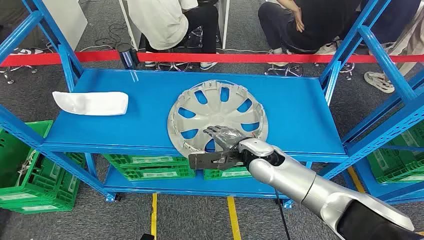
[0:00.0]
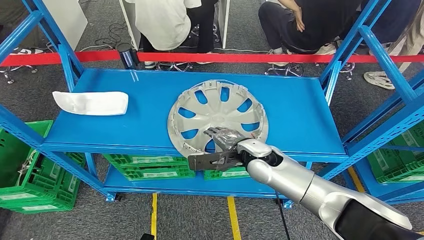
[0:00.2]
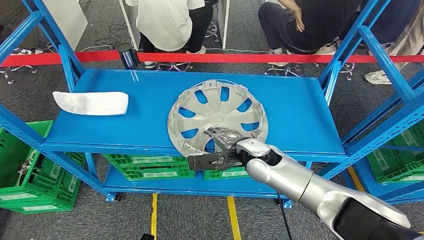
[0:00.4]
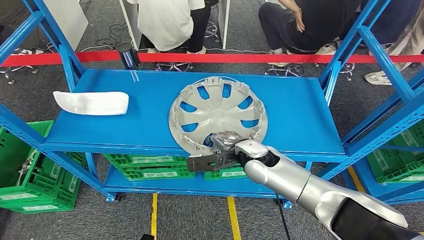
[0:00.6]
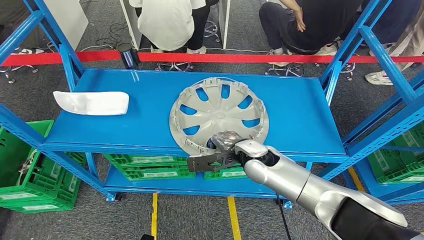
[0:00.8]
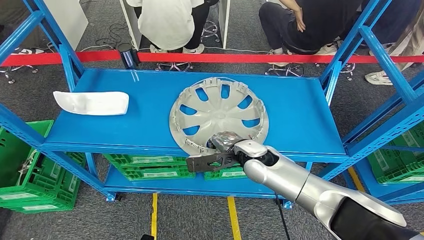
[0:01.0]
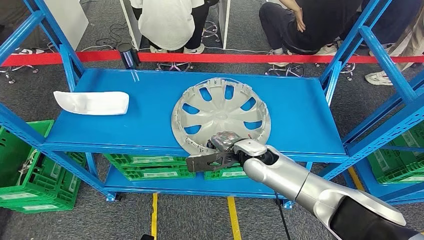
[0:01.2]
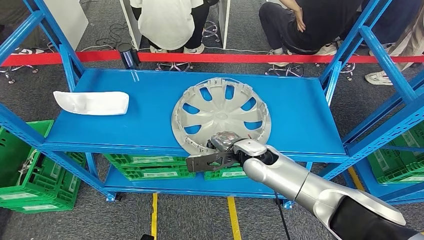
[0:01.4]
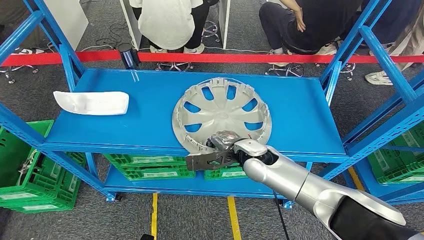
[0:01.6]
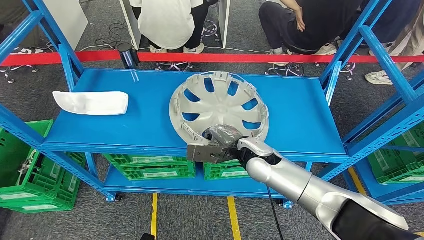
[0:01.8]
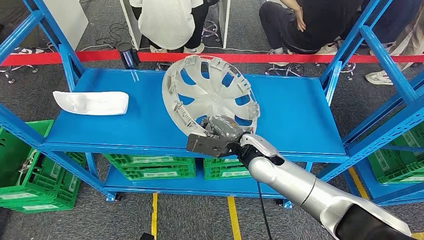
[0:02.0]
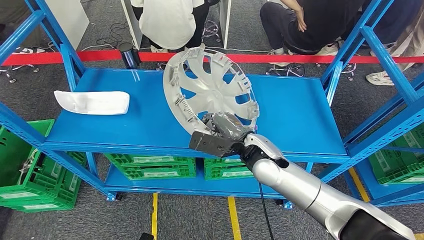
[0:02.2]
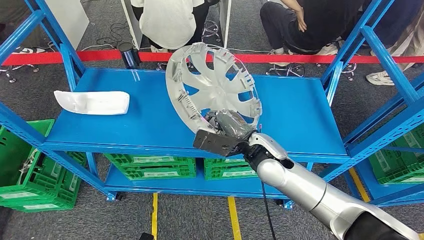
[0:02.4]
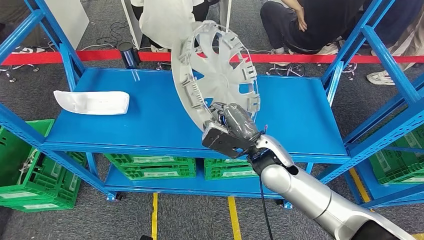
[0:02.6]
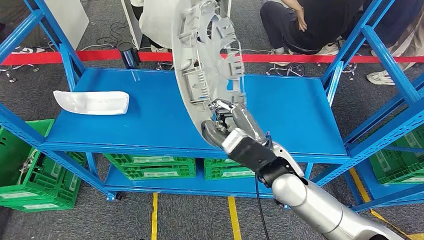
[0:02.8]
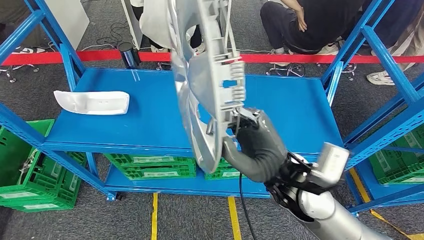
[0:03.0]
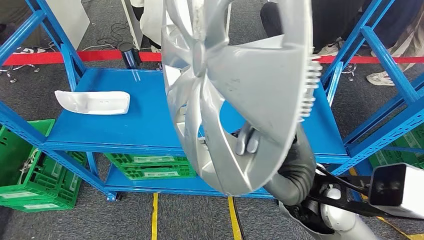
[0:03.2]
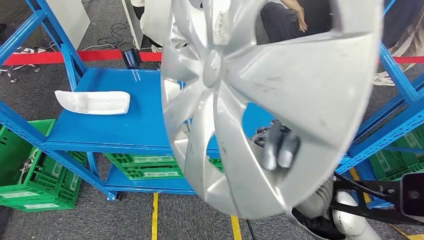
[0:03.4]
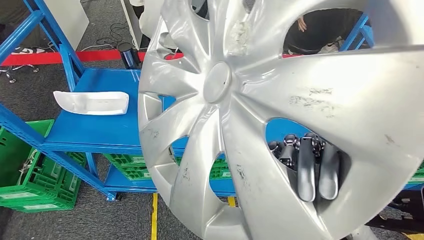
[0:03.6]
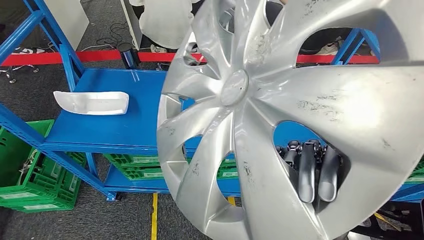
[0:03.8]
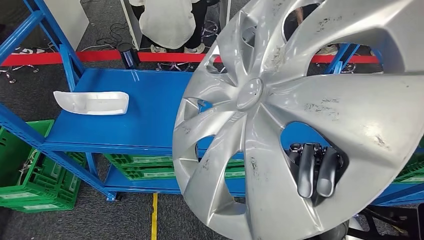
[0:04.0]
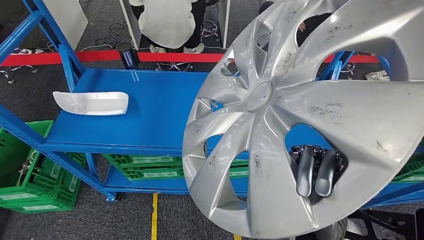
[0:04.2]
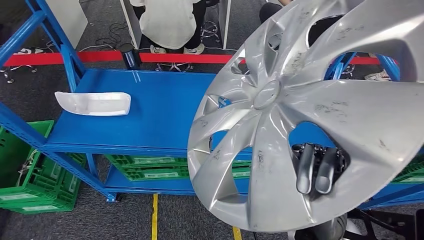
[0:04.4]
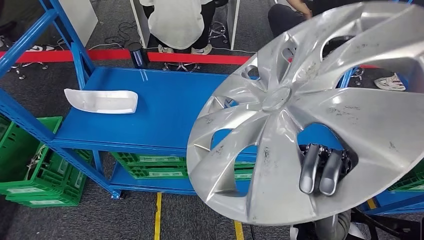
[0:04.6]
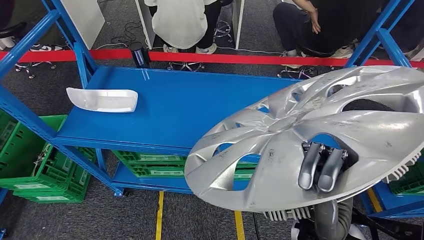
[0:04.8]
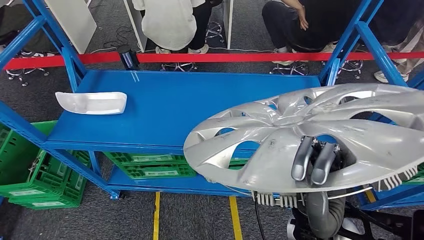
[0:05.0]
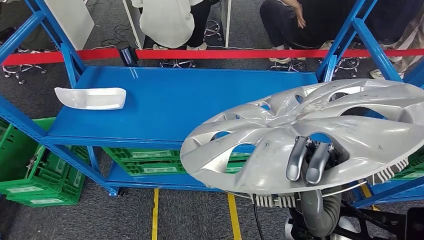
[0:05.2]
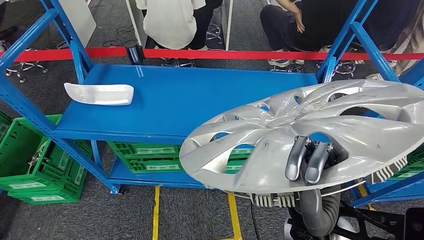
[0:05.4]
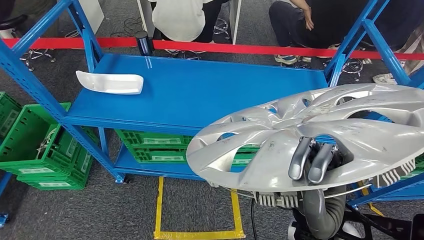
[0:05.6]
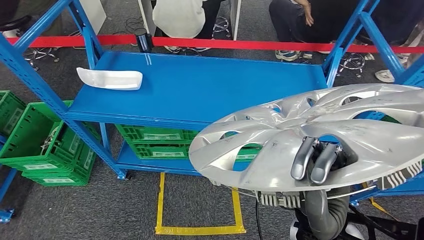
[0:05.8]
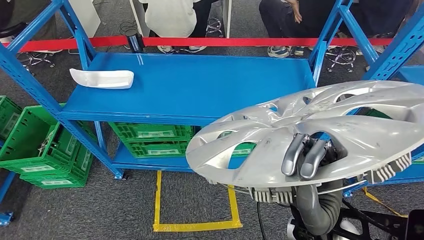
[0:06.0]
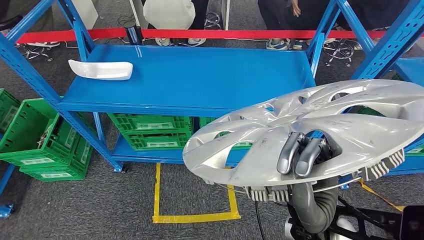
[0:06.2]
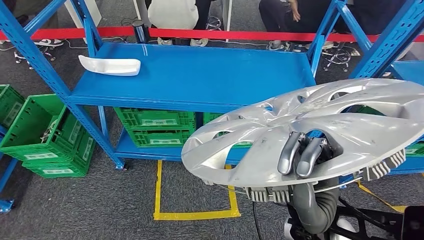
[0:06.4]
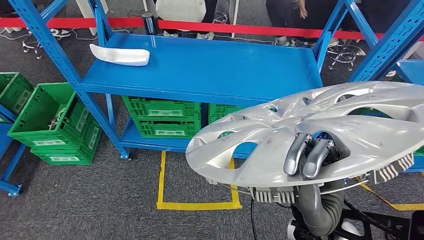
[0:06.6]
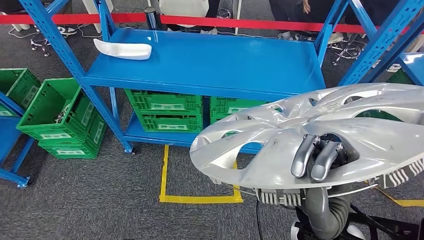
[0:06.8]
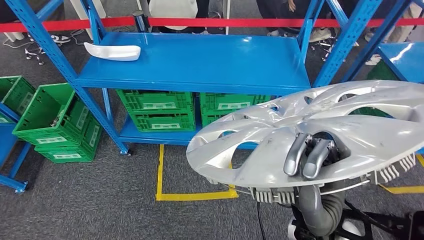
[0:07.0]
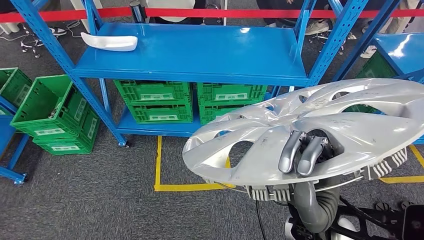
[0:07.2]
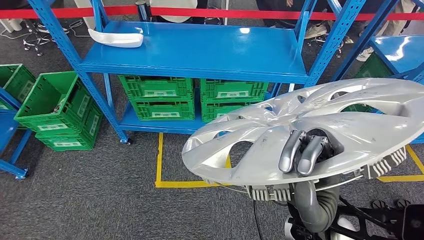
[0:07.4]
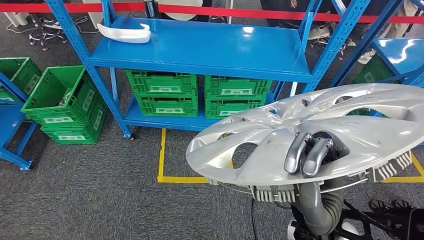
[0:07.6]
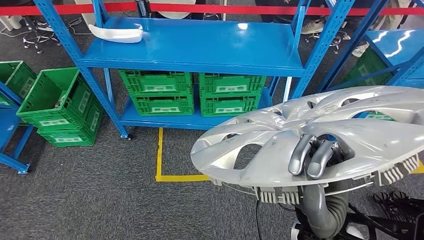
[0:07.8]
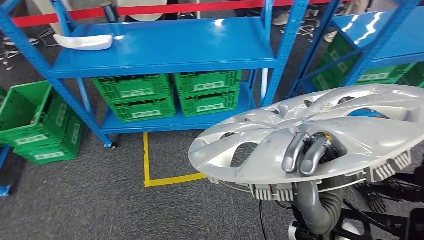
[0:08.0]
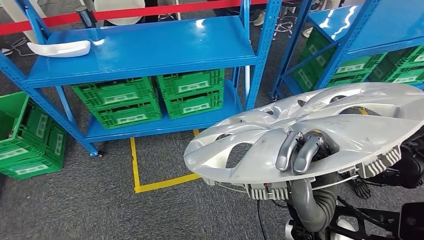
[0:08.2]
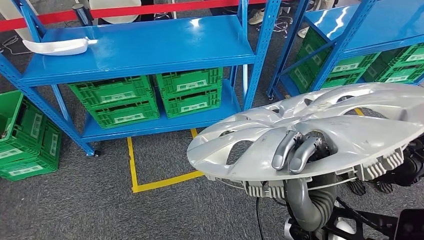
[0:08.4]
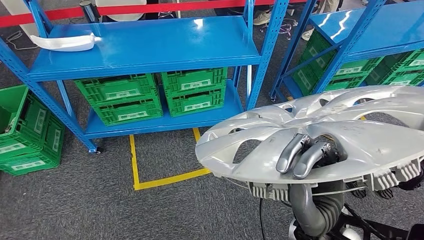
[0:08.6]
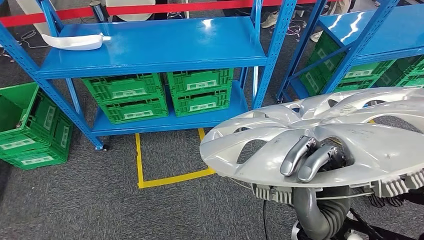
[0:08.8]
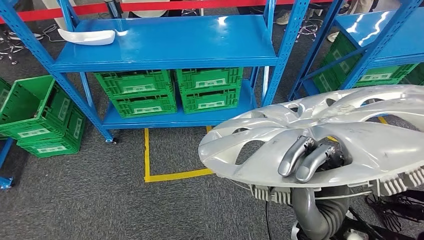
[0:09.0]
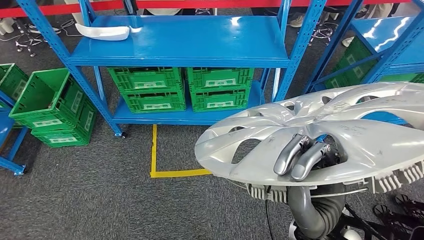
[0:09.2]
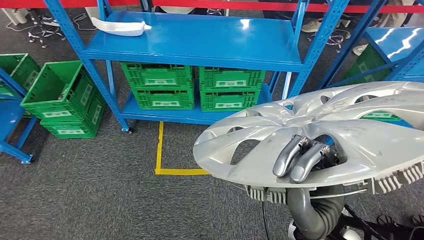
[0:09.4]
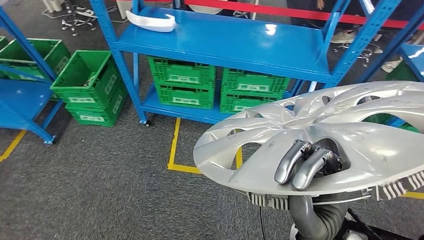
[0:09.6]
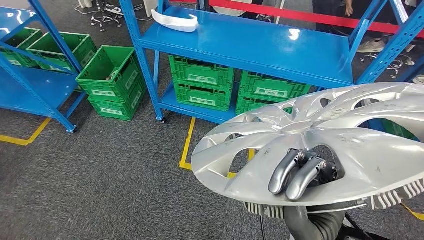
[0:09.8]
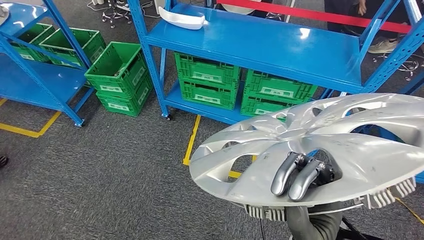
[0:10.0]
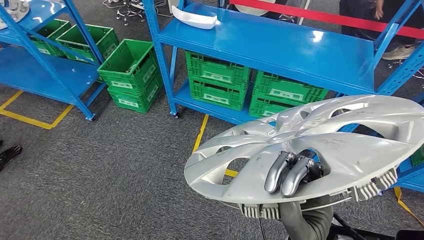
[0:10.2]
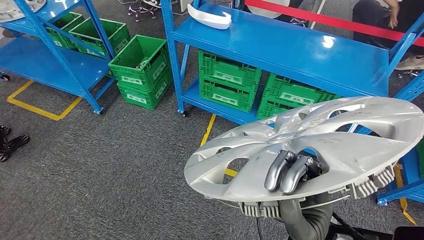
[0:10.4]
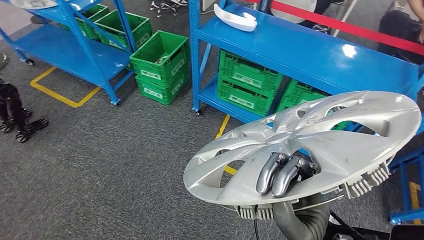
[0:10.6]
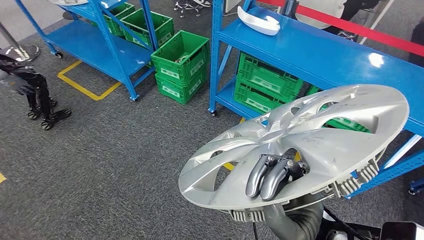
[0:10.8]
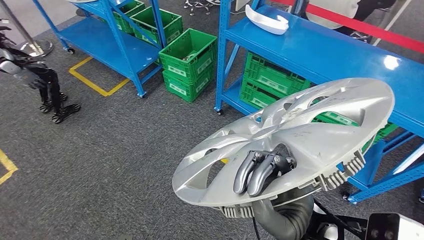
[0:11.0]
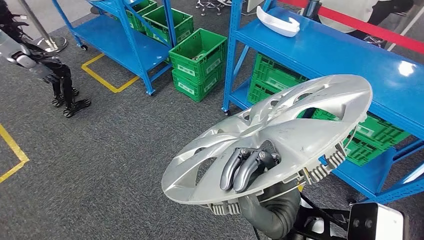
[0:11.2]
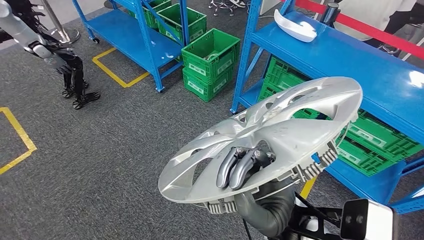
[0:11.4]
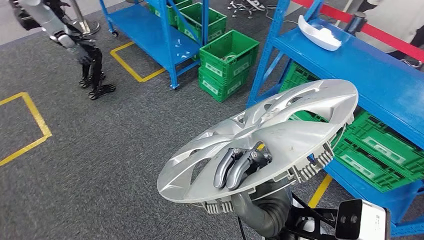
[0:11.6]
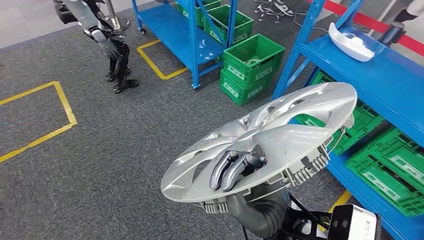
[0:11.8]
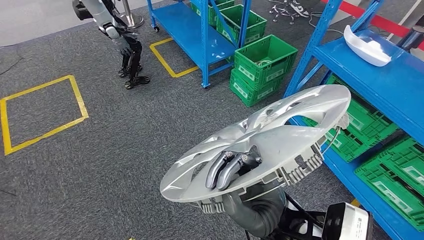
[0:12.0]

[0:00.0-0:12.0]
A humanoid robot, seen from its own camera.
Step, 0:00.0 to 0:04.4: Take small components from the rack.

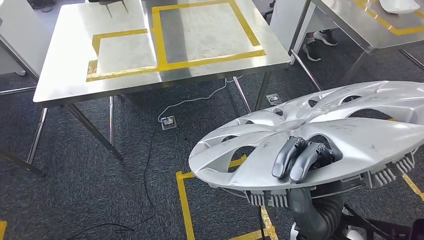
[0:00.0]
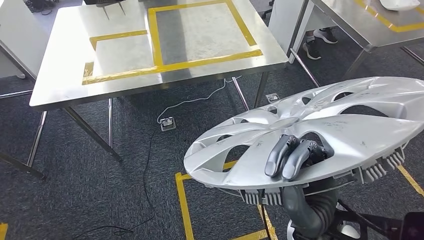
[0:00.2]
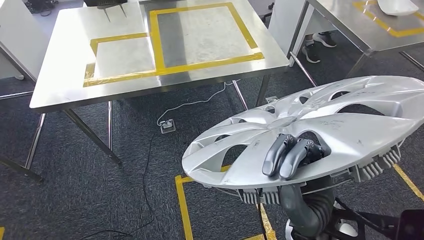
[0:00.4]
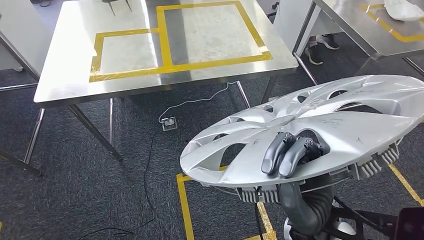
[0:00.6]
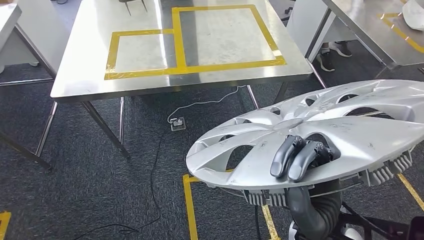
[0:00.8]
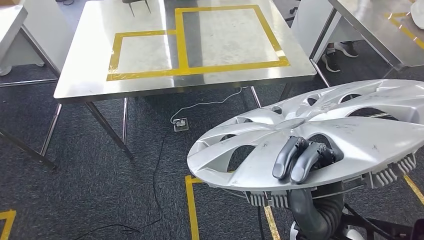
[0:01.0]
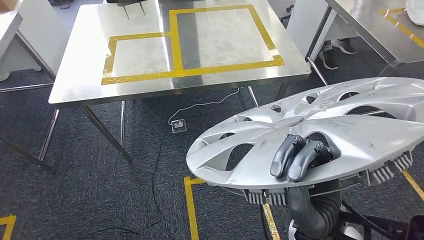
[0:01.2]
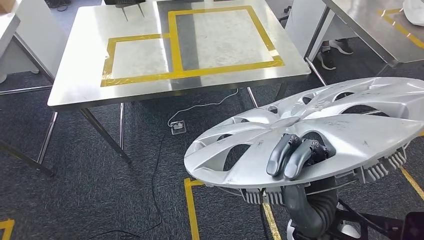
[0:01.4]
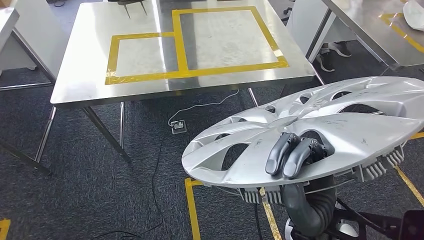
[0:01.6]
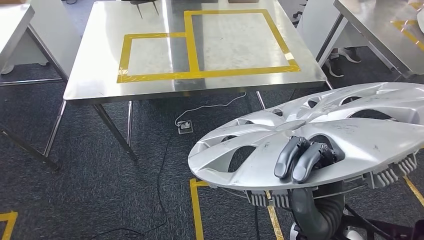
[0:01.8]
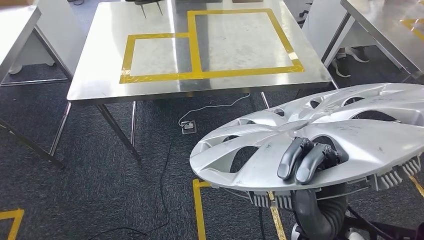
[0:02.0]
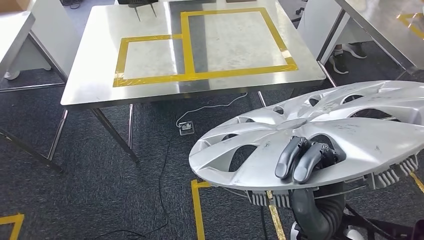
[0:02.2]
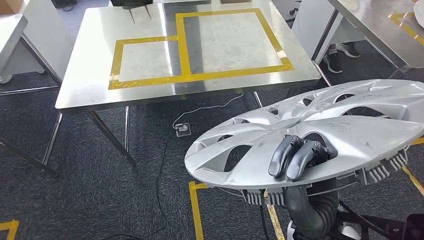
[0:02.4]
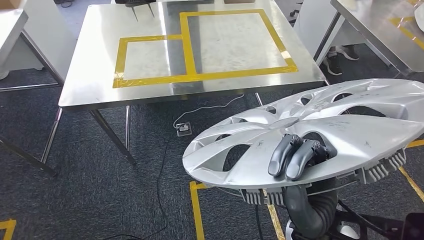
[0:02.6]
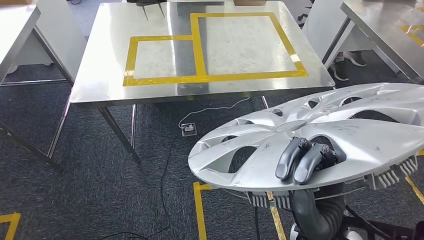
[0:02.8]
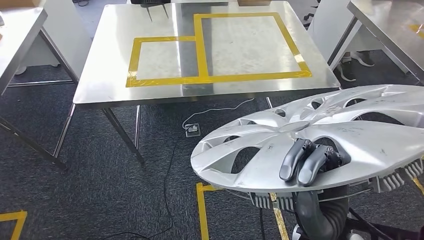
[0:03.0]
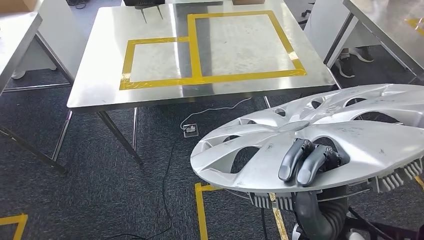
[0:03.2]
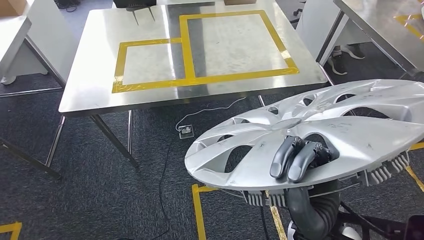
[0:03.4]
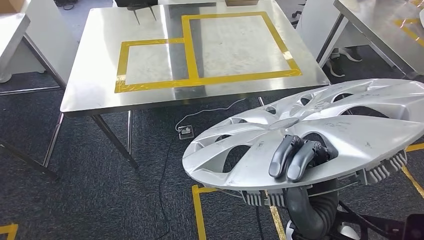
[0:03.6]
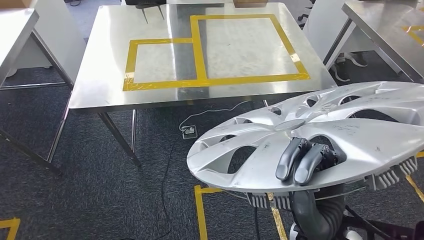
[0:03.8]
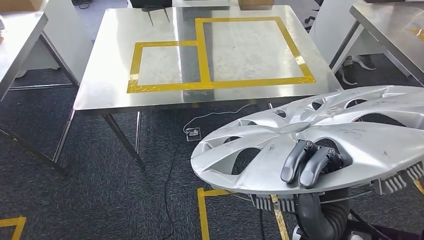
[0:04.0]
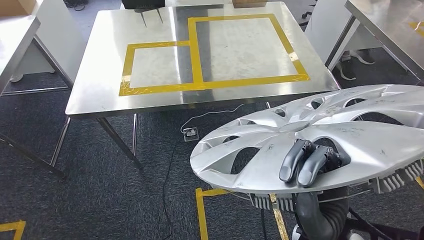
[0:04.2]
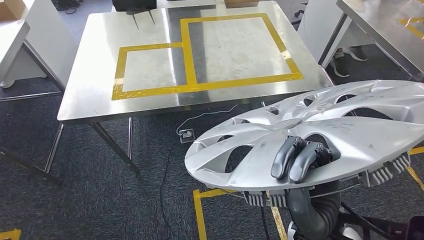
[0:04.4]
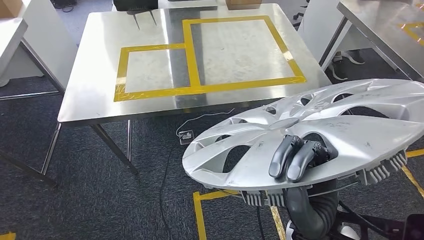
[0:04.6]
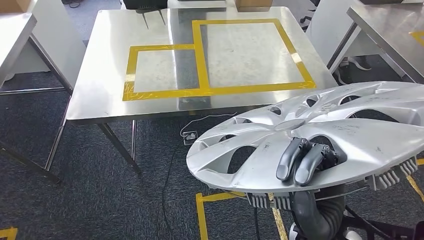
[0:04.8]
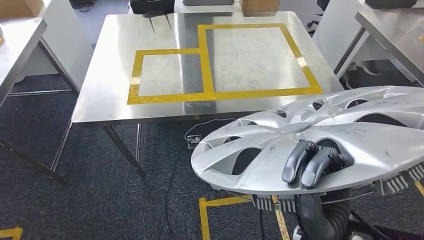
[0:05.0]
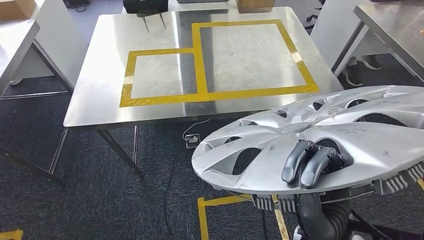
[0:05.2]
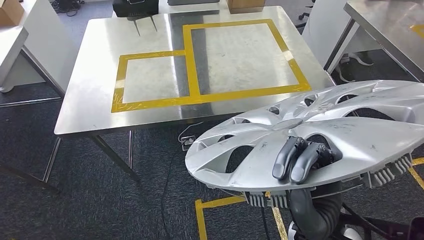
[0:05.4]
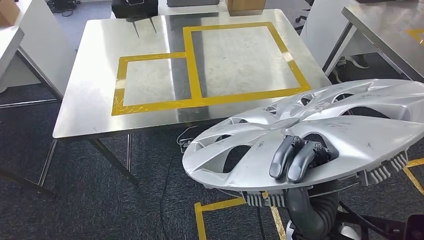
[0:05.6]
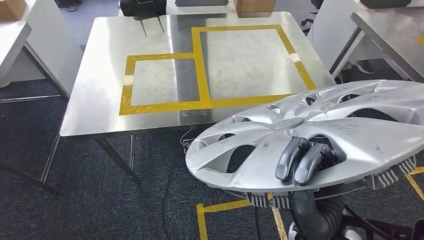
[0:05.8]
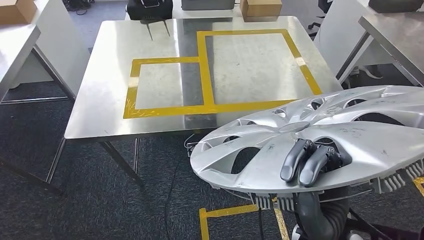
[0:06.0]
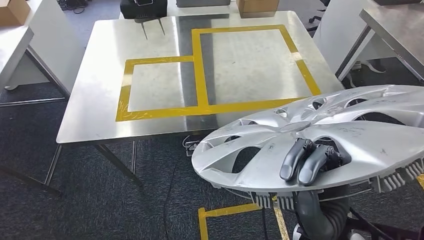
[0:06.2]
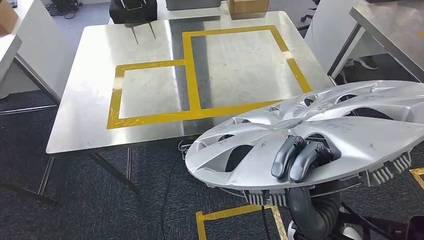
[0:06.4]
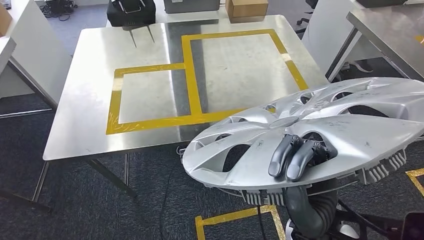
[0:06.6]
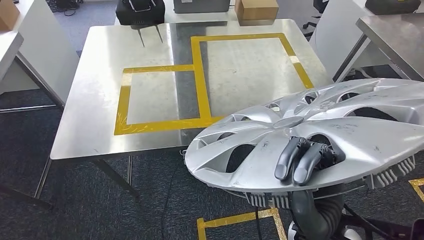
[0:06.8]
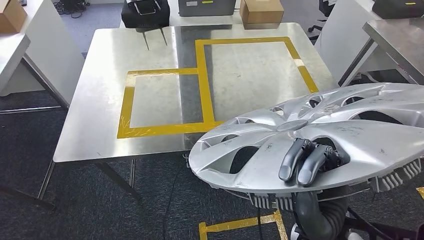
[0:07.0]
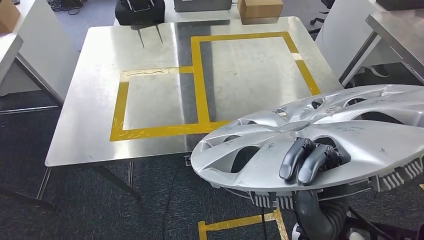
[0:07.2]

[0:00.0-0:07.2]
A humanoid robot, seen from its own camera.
Step, 0:00.0 to 0:05.2: Move the small parts to the workbench.
